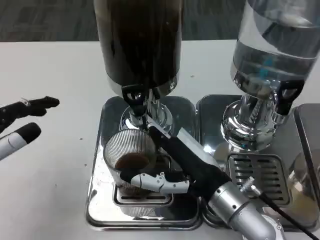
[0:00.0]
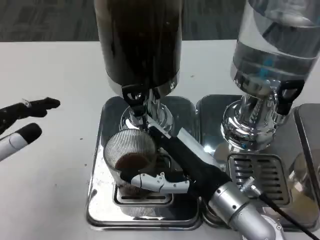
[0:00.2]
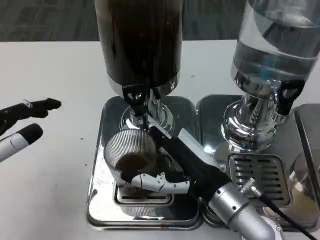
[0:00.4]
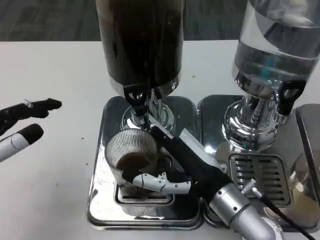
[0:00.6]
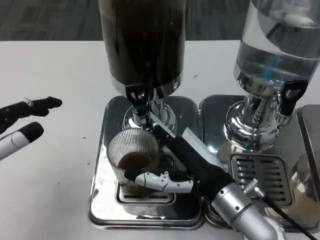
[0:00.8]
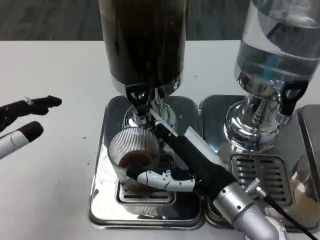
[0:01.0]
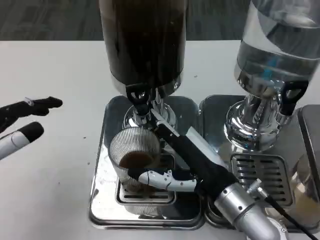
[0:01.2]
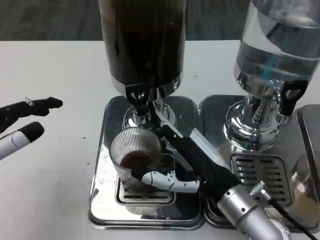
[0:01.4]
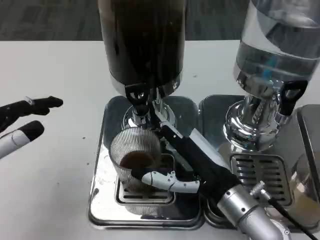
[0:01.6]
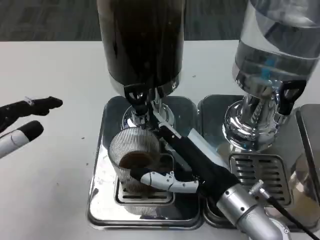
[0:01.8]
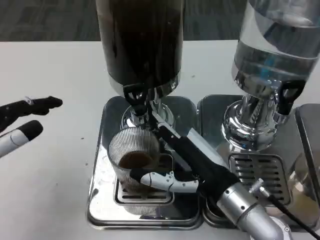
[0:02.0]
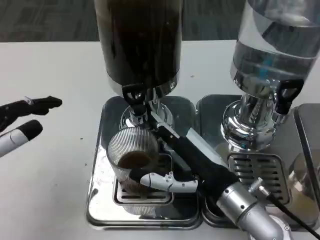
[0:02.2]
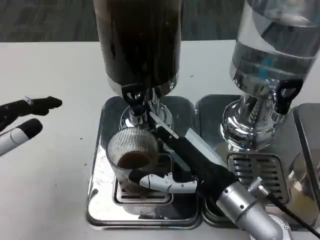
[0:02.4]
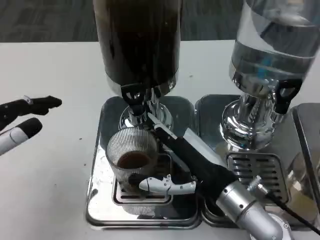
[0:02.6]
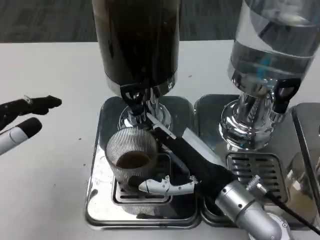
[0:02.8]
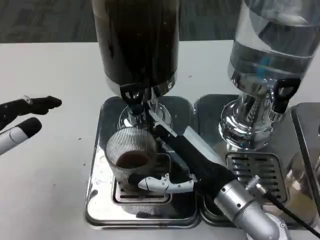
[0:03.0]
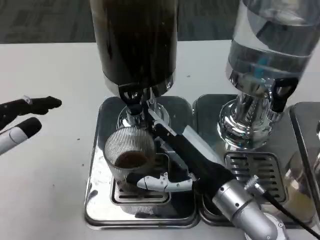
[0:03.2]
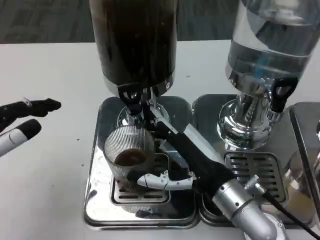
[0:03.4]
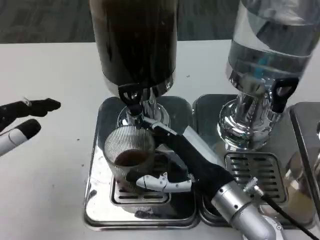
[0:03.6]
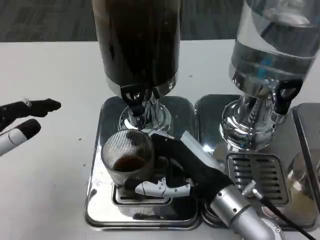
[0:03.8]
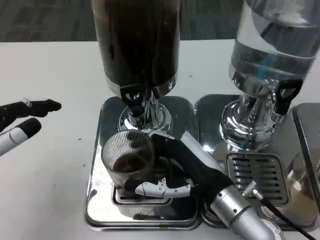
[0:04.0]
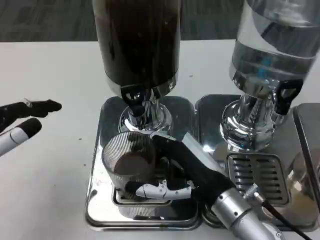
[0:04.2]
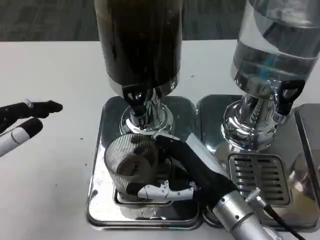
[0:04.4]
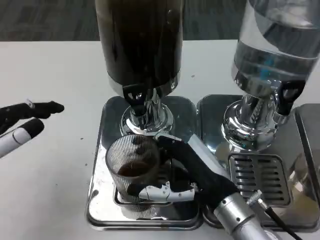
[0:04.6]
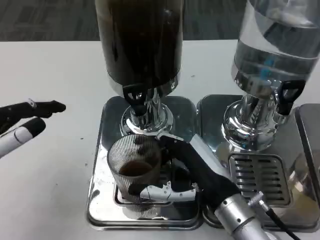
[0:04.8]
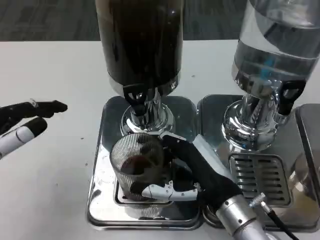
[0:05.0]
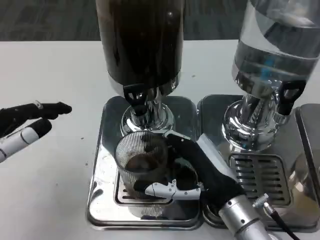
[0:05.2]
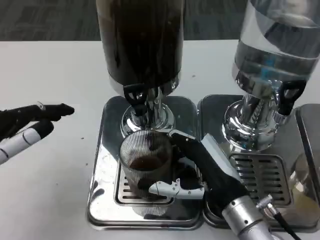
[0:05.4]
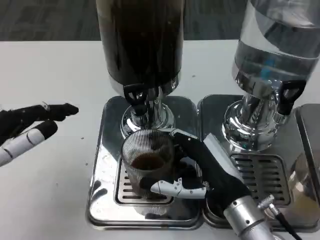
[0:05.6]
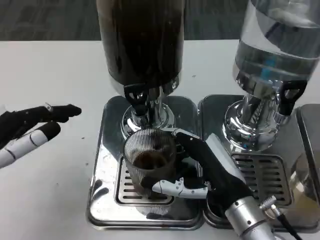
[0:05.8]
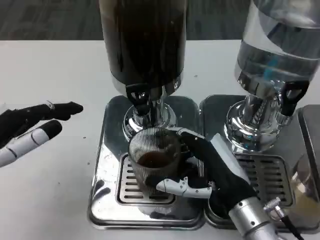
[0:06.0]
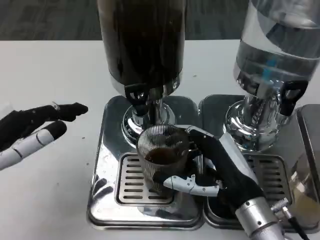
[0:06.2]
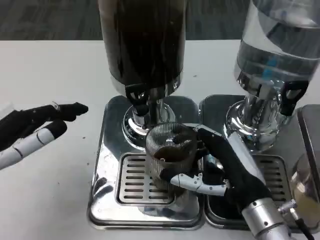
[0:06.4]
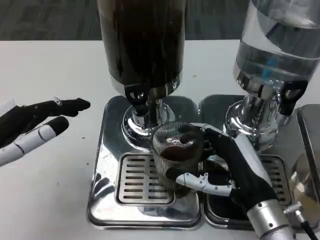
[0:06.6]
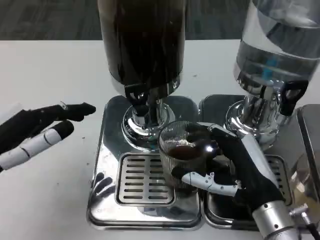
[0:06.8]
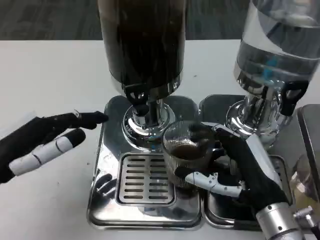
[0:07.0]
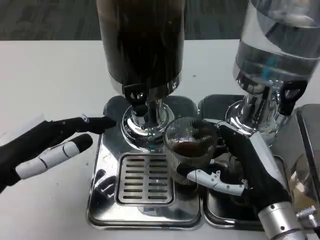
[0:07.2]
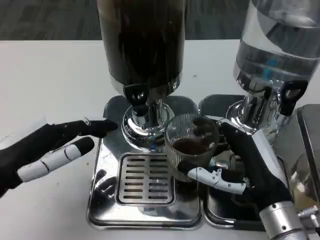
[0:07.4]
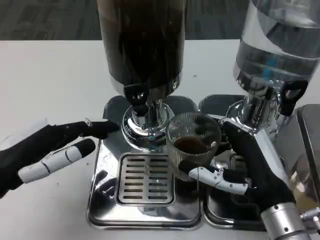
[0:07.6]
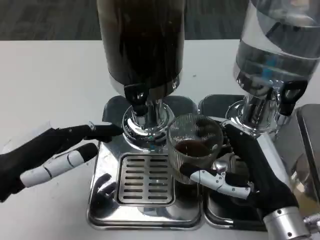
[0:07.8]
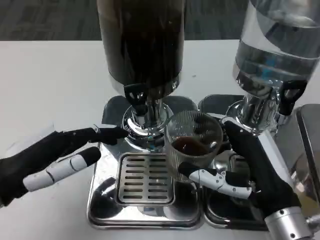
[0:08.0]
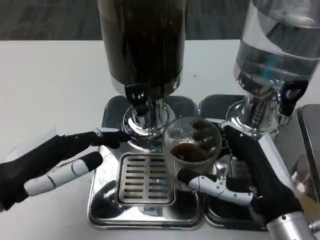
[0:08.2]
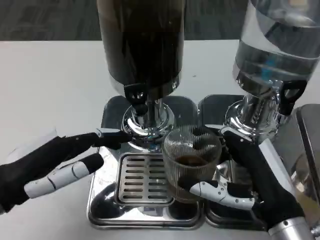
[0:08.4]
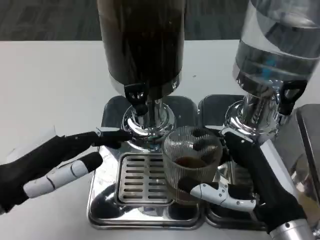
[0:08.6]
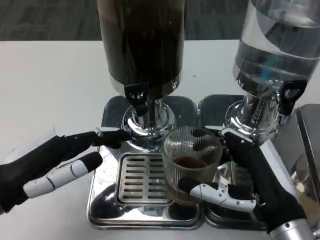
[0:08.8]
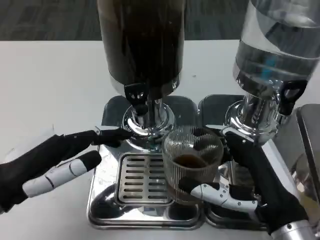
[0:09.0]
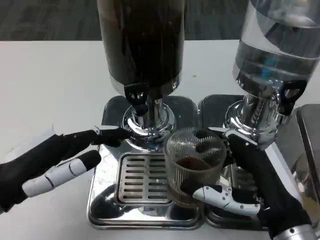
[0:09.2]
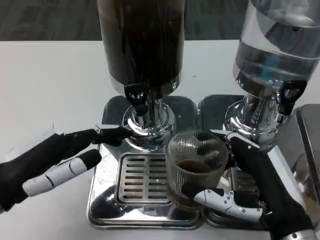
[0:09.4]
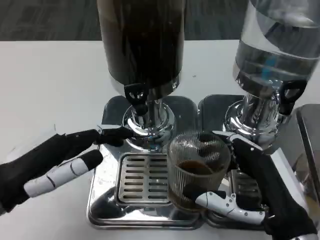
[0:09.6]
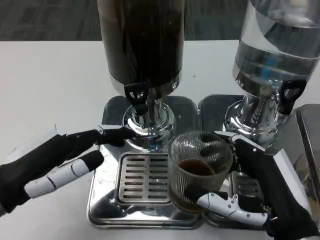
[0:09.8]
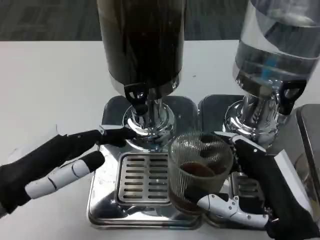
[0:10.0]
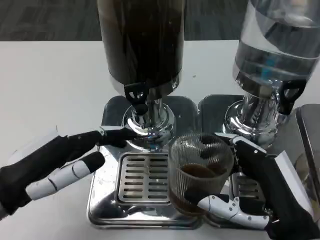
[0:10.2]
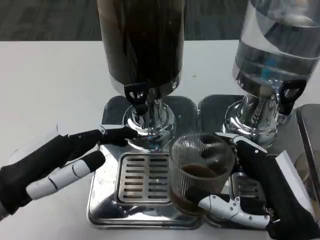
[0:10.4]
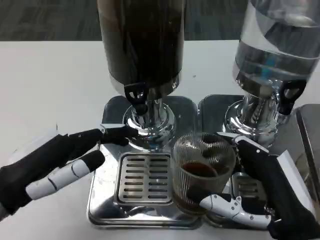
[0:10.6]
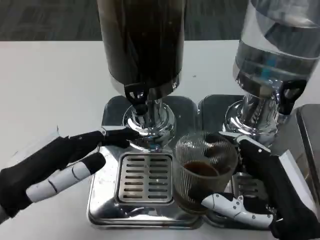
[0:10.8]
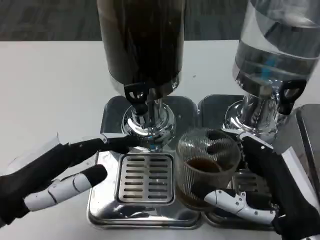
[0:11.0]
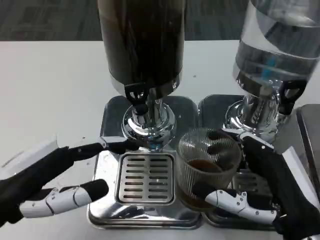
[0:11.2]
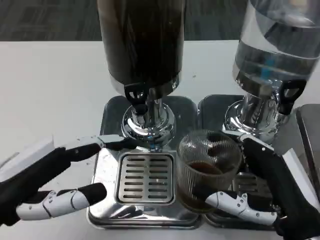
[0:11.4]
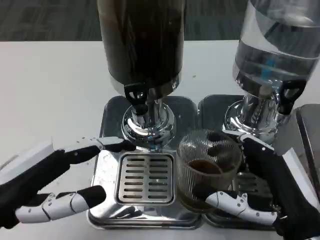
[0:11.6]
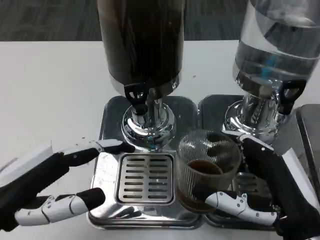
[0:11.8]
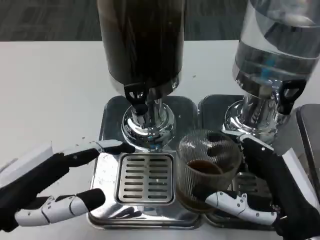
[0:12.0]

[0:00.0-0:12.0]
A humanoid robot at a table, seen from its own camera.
Task of the whole recording: Grasp the cup under the faucet to collect the drink, then remove the cup.
0:09.0 to 0:12.0: The hands stay close to where they were, moving slightly.

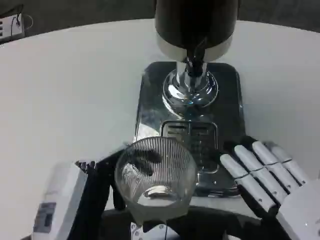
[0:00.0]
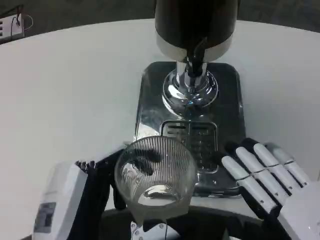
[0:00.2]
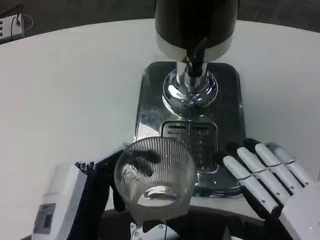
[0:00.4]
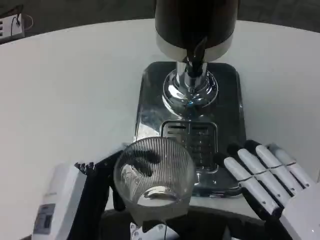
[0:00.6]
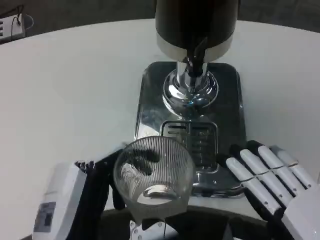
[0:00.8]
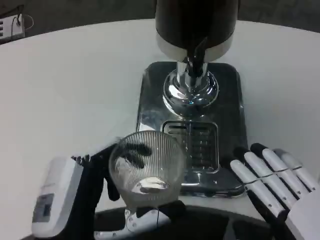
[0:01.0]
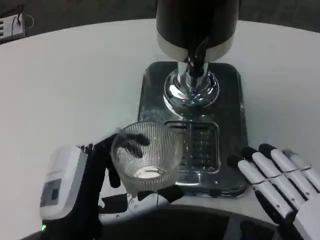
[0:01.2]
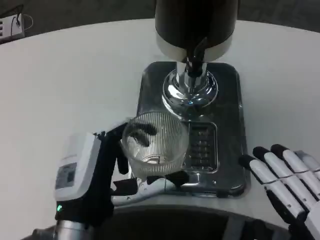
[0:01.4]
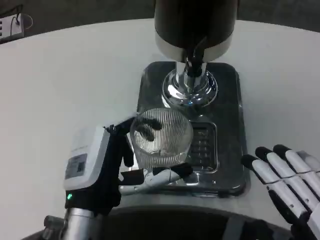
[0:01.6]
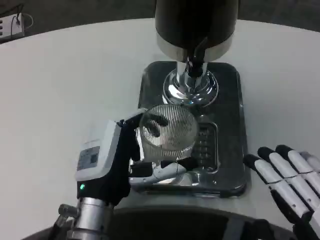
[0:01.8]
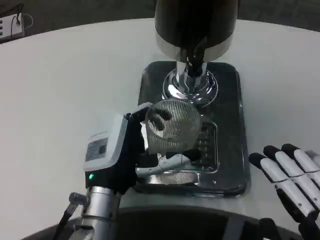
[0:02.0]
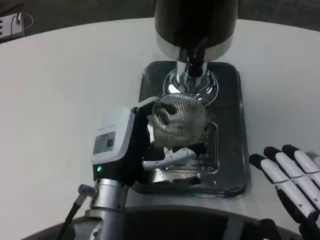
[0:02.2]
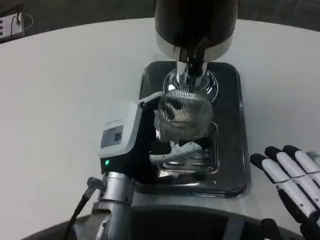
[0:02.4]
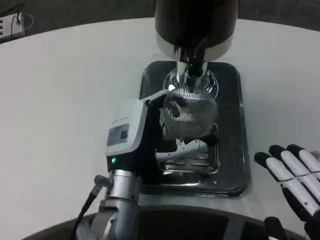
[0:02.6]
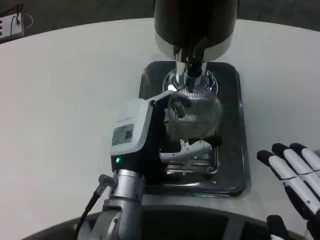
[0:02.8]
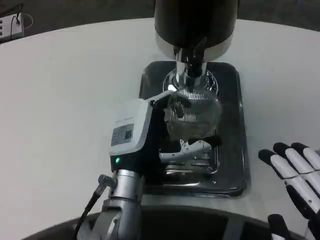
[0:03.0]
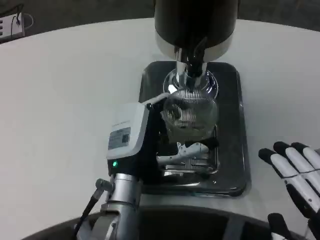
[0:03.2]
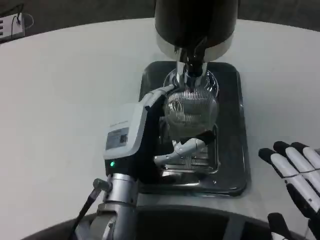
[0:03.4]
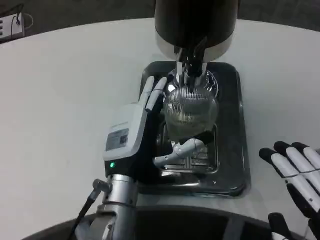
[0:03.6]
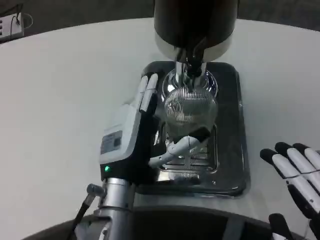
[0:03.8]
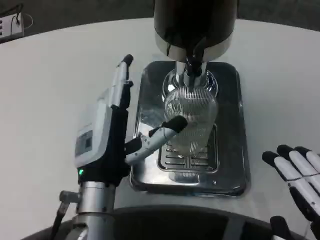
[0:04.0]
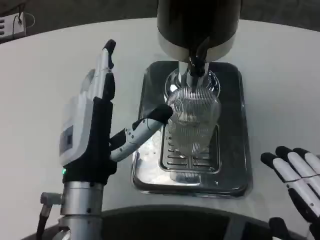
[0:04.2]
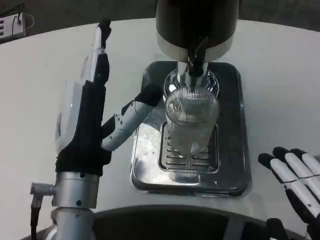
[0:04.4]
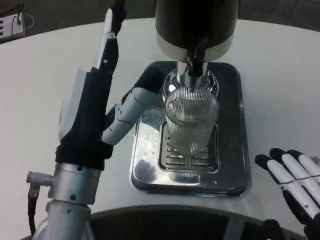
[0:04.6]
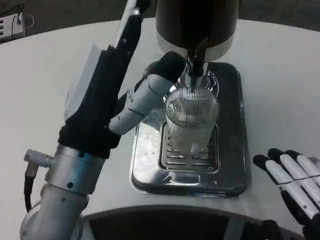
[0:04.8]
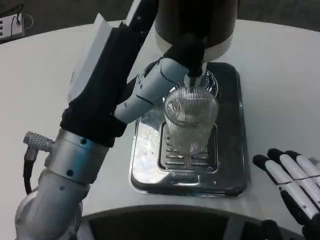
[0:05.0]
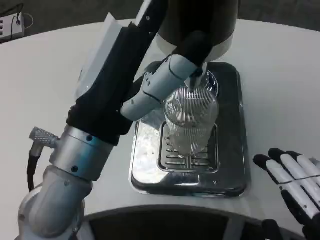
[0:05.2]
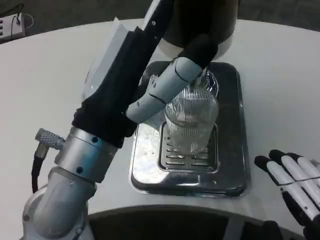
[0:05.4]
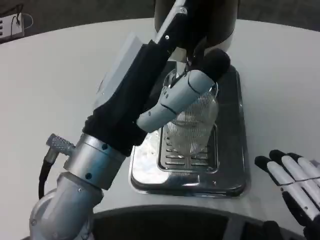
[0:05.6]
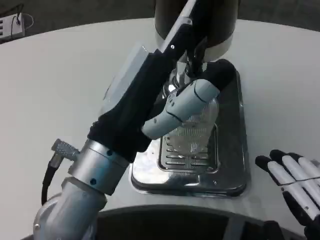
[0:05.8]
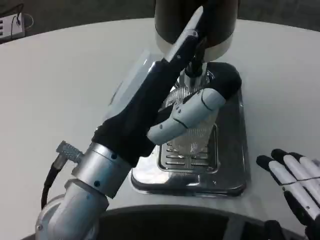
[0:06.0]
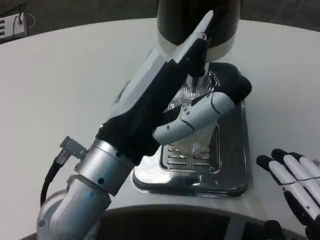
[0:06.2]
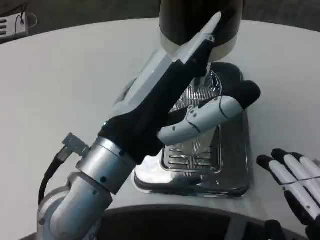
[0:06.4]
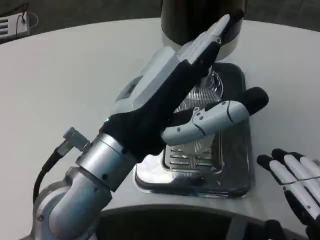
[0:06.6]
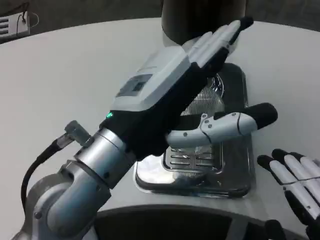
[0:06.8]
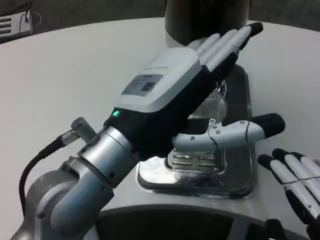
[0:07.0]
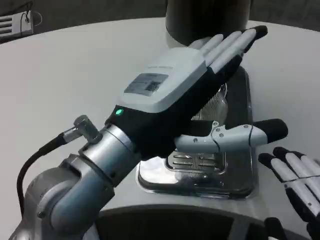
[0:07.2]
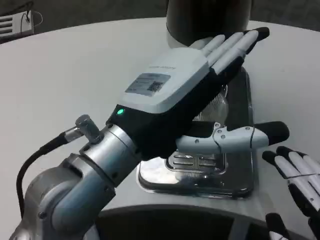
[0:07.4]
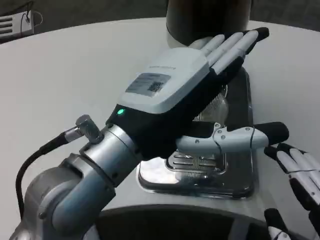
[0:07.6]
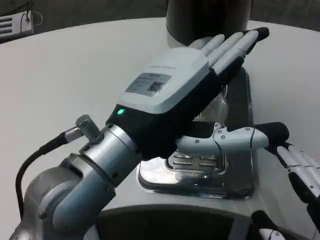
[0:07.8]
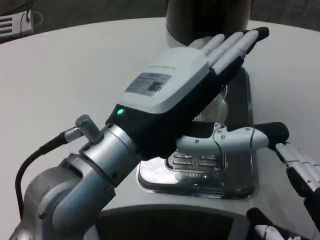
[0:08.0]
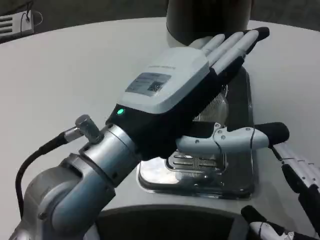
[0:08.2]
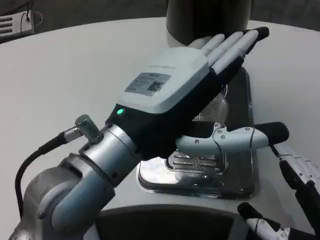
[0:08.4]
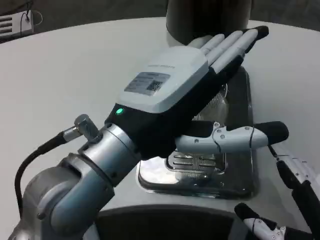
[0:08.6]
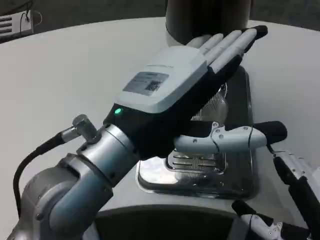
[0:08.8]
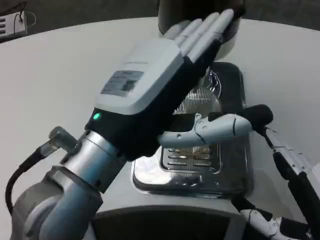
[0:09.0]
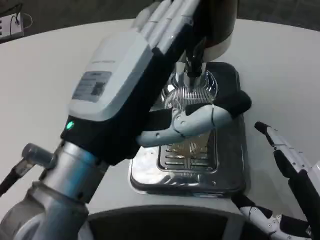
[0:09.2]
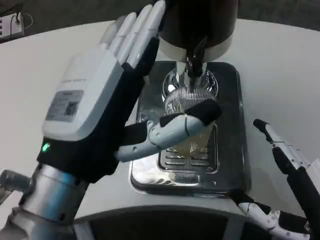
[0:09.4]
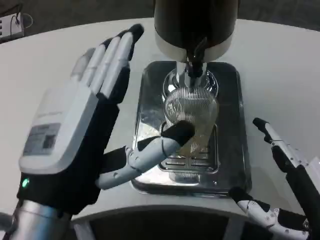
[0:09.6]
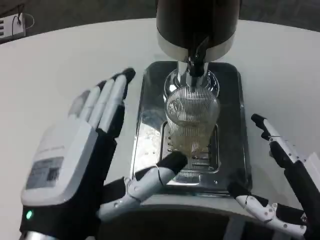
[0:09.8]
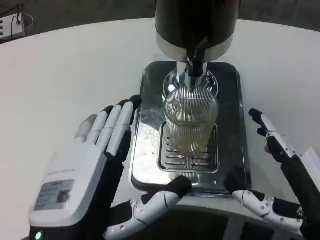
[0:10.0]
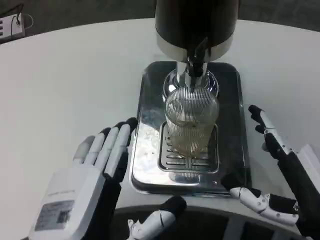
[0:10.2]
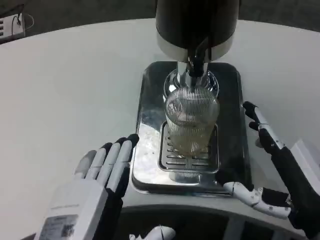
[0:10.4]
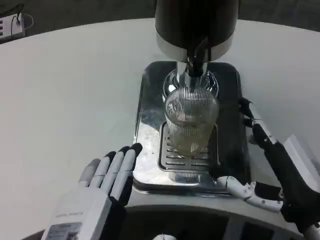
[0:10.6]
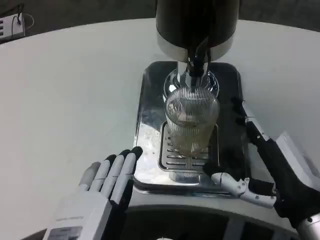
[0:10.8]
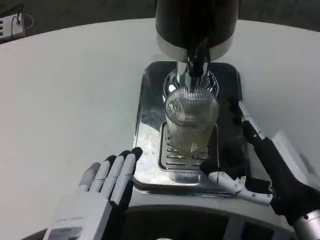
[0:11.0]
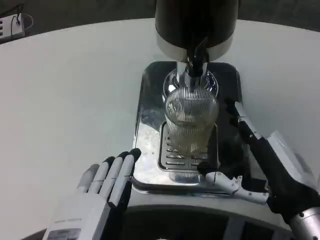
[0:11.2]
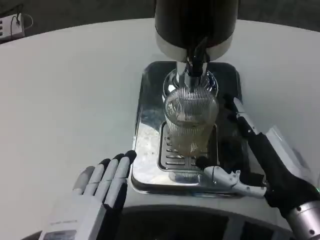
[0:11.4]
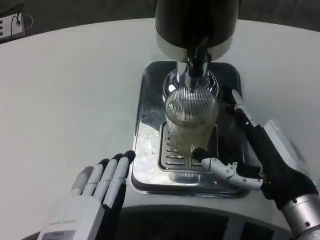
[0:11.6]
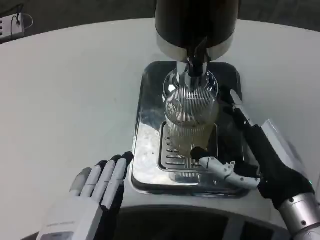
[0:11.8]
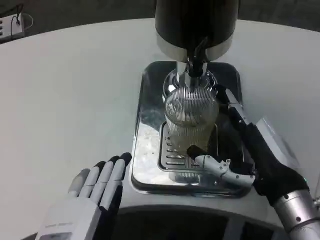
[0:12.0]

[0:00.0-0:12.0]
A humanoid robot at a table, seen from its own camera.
Task of the whole recording: Grasp the cup under the faucet to collect the drink, then remove the cup.
0:00.0 to 0:01.6: The left hand heads forward, covering about 10 cm.
0:01.6 to 0:03.0: The left hand heads forward, covering approximately 5 cm.
0:03.0 to 0:04.4: The left hand shifts some 10 cm backward and upward.
0:04.4 to 0:06.0: The left hand heads upward, covering about 5 cm.
0:07.6 to 0:09.0: The right hand ends up about 5 cm from where it was.
0:09.0 to 0:10.4: The left hand heads downward and backward, covering approximately 15 cm.
0:10.4 to 0:12.0: The right hand heads forward, covering approximately 5 cm.
